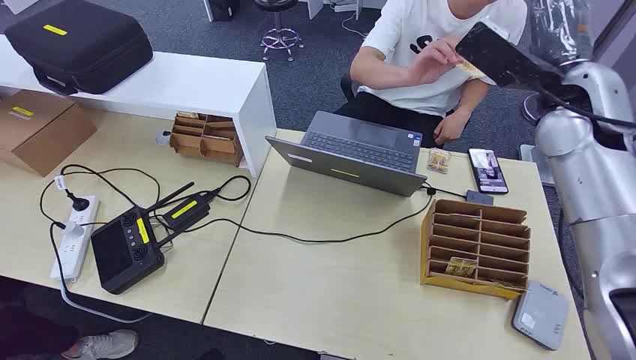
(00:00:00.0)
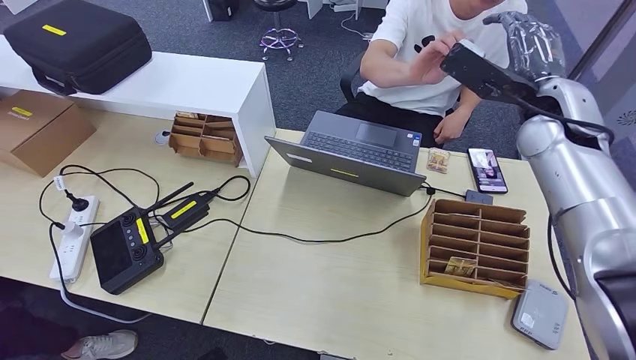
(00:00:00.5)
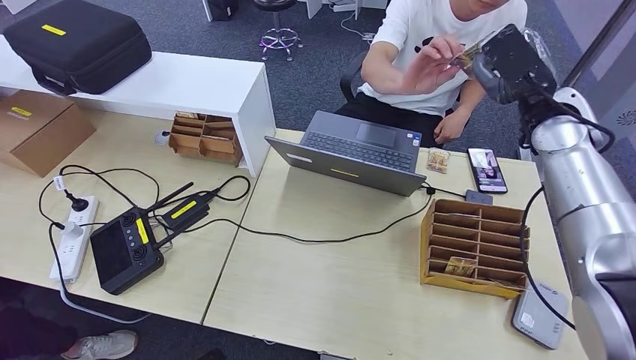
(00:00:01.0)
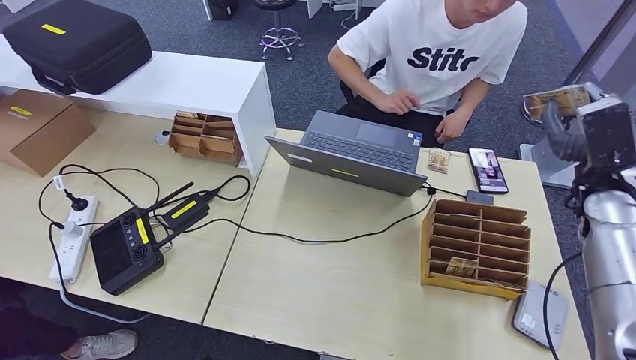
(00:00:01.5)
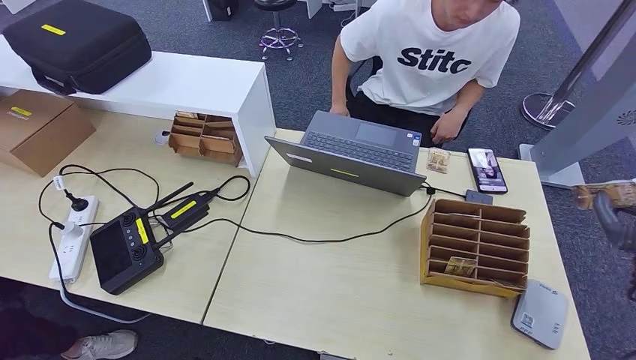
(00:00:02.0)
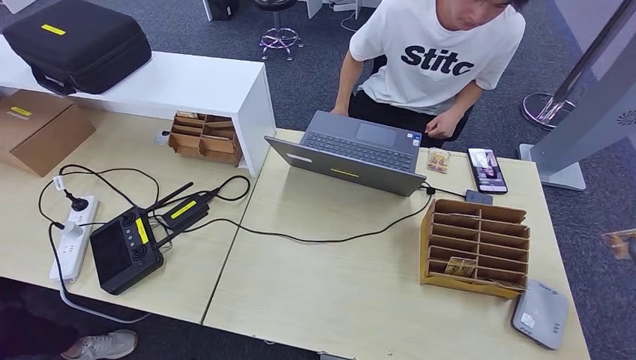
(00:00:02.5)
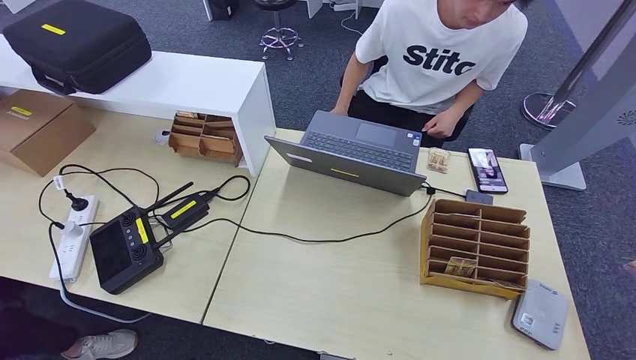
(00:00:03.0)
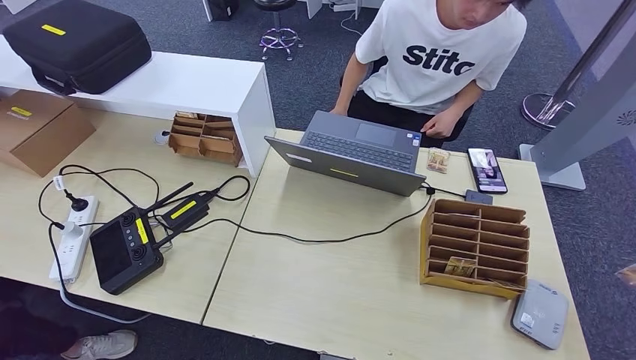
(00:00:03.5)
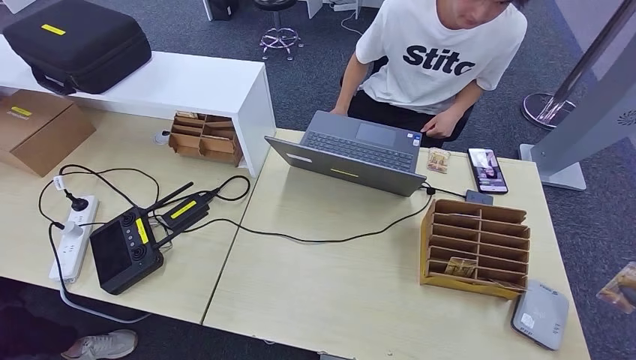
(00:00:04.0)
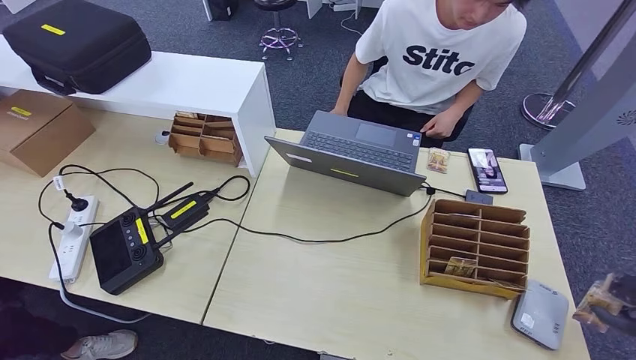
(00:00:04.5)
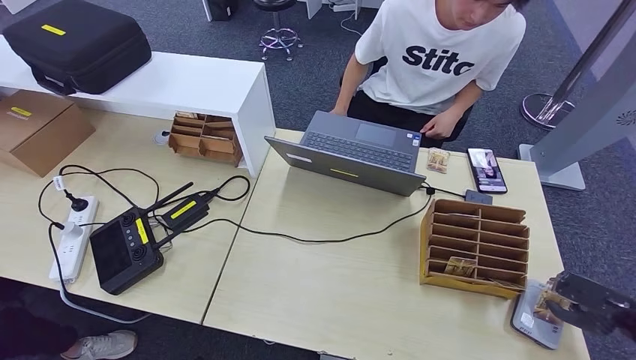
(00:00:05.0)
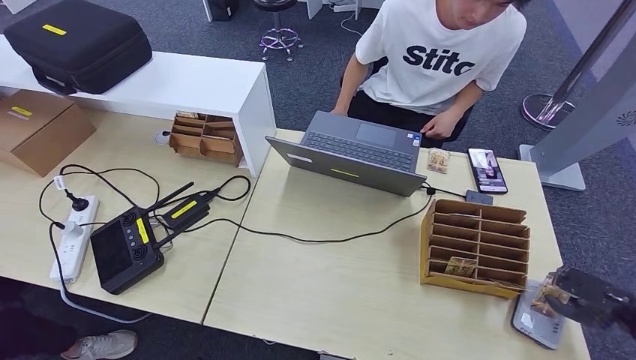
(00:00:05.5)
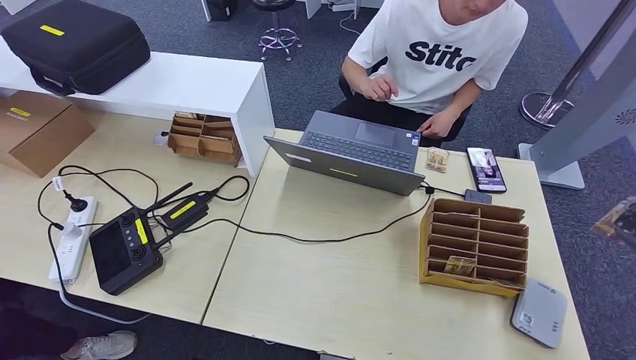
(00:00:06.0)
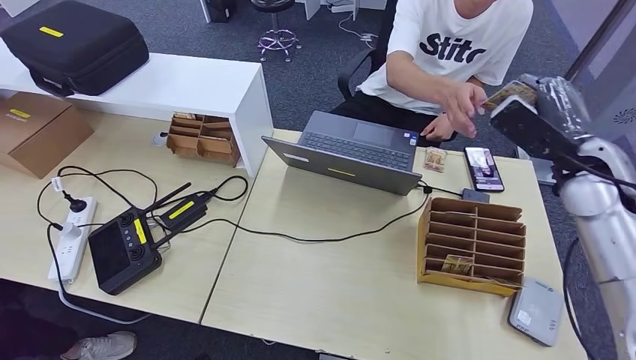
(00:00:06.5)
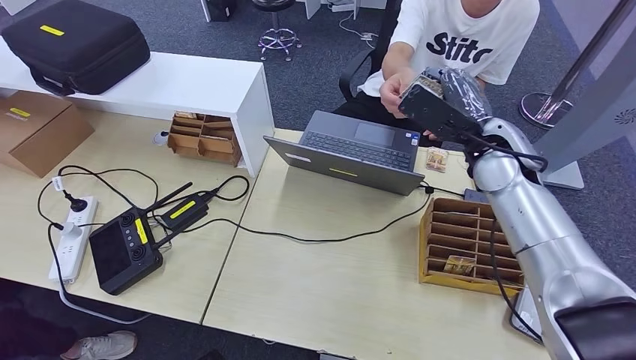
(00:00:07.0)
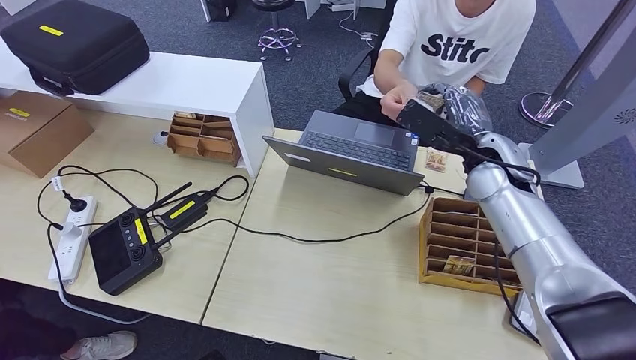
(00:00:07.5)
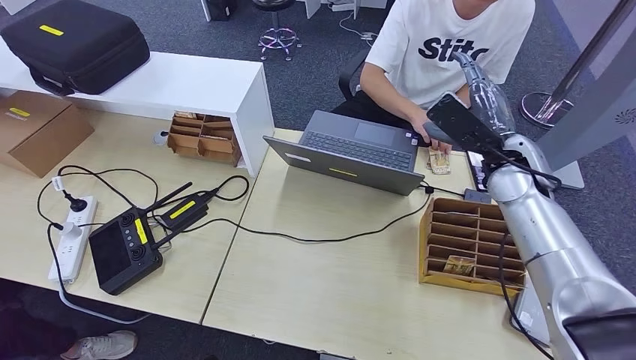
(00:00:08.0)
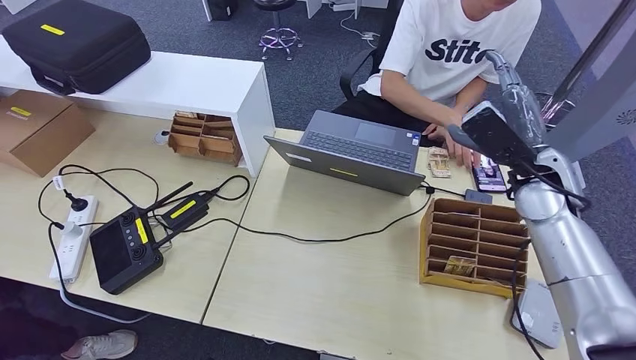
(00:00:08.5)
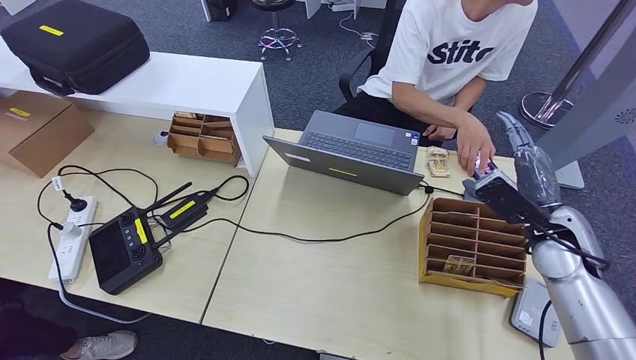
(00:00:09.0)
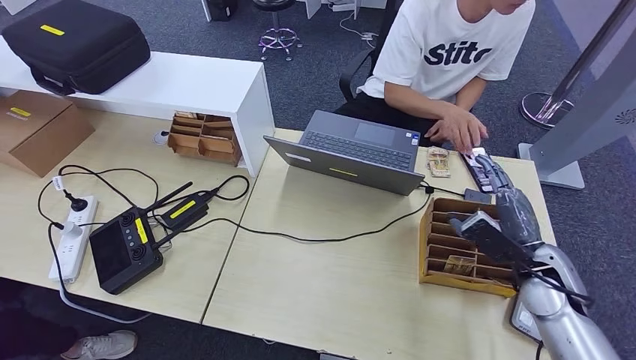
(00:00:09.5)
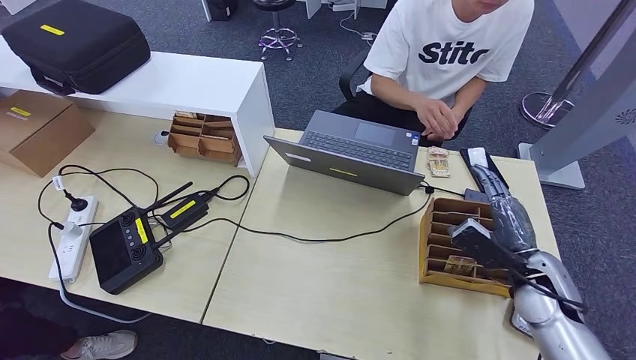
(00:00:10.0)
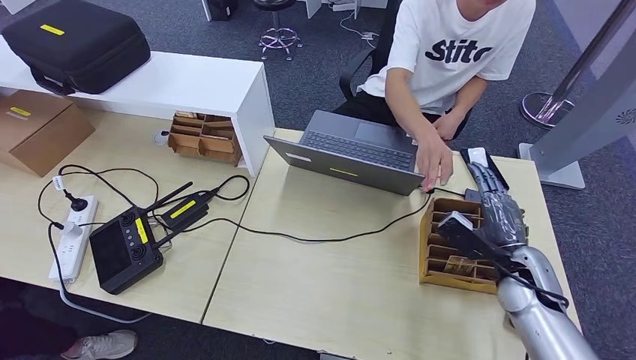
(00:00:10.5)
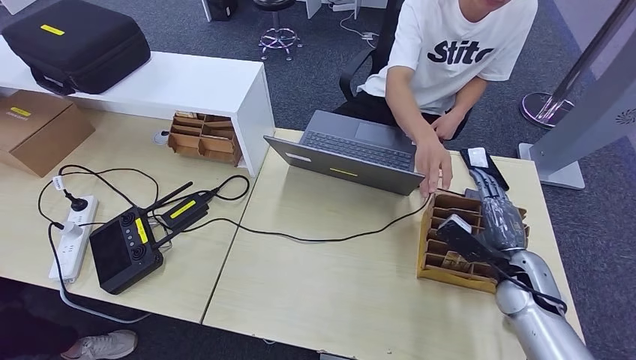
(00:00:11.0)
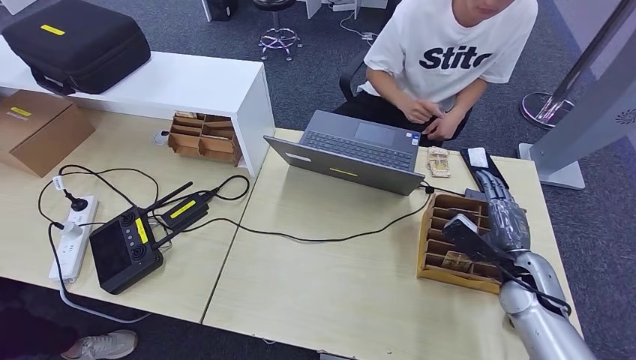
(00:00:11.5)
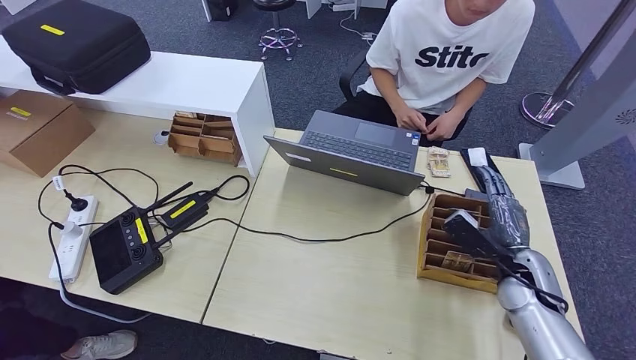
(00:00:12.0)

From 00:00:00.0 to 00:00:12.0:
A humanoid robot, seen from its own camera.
Step, from 00:00:00.0 to 00:00:02.0: Take the ID card from the person's hand.
Step, from 00:00:02.5 to 00:00:07.0: Place the ID card on the card reader.
Step, from 00:00:07.5 to 00:00:09.5: Hand the ID card to the person.
From 00:00:02.0 to 00:00:04.0: The right hand goes about 15 cm to the right and backward.
From 00:00:04.0 to 00:00:06.0: The right hand is displaced forward by some 5 cm.
From 00:00:06.0 to 00:00:08.0: The right hand heads to the left, covering approximately 30 cm.
From 00:00:08.0 to 00:00:10.0: The right hand moves downward, backward and to the right, about 20 cm.
From 00:00:10.0 to 00:00:12.0: The hands stay close to where they were, moving slightly.

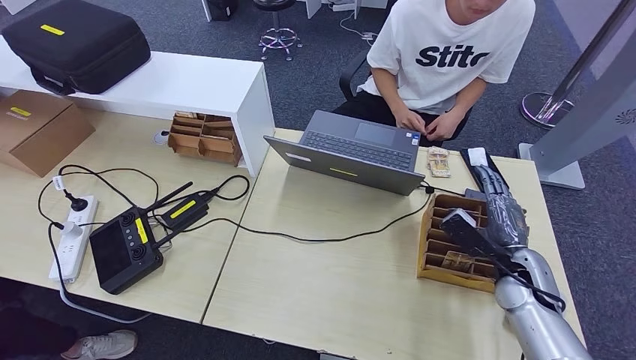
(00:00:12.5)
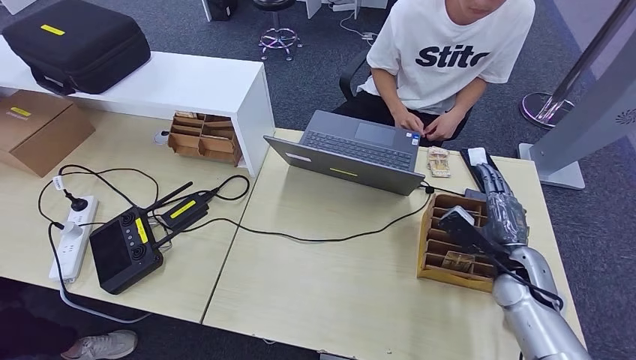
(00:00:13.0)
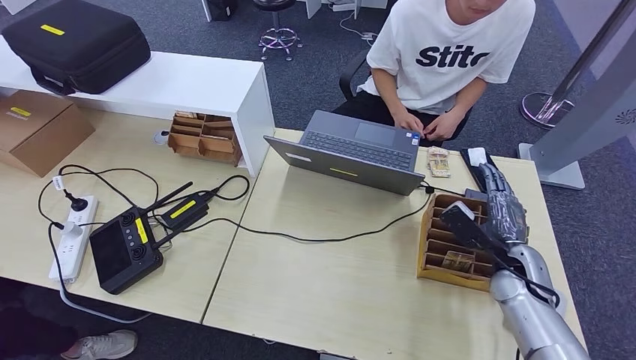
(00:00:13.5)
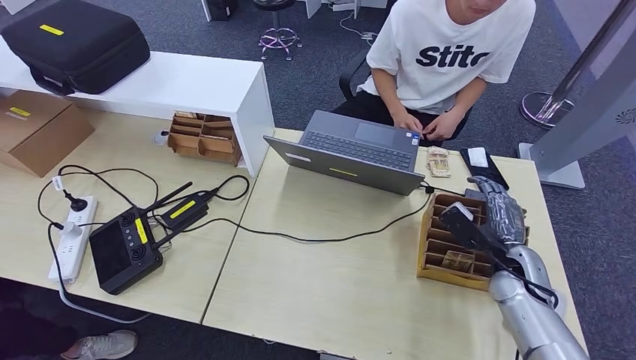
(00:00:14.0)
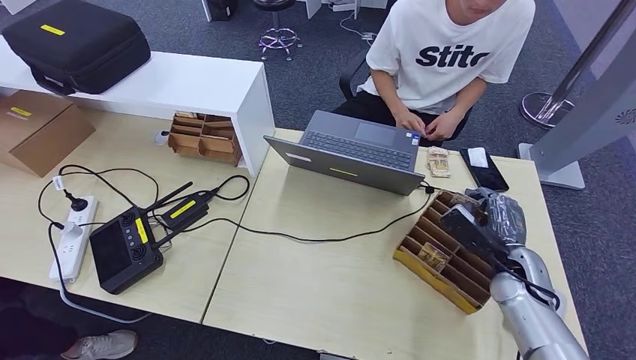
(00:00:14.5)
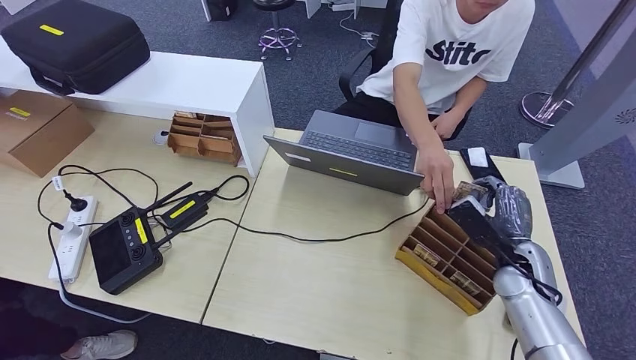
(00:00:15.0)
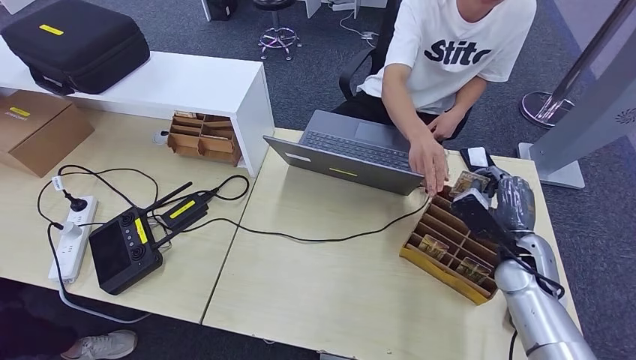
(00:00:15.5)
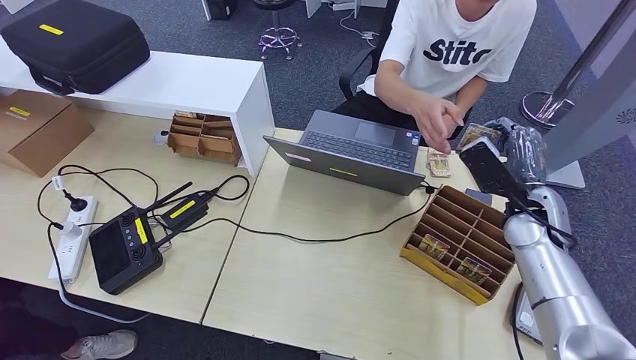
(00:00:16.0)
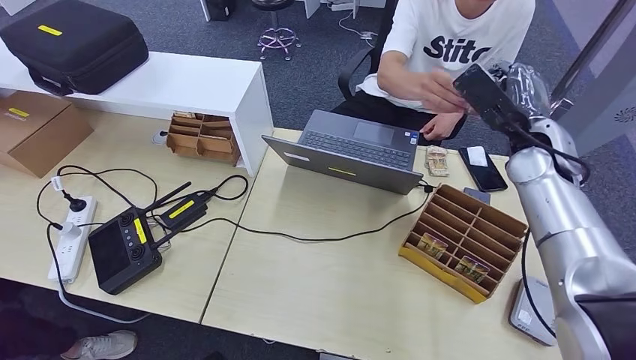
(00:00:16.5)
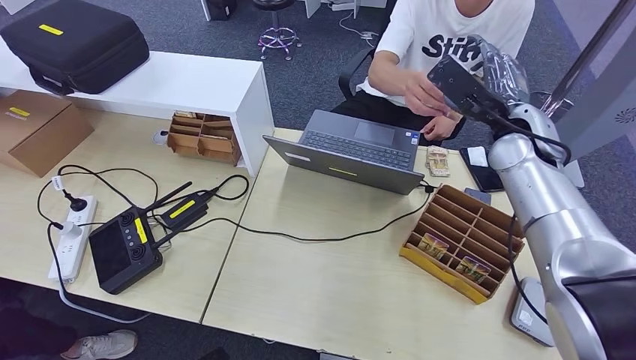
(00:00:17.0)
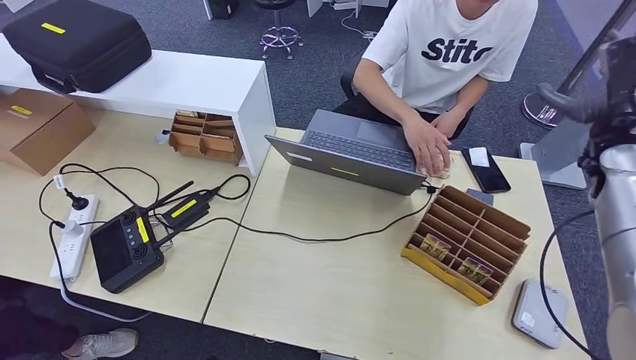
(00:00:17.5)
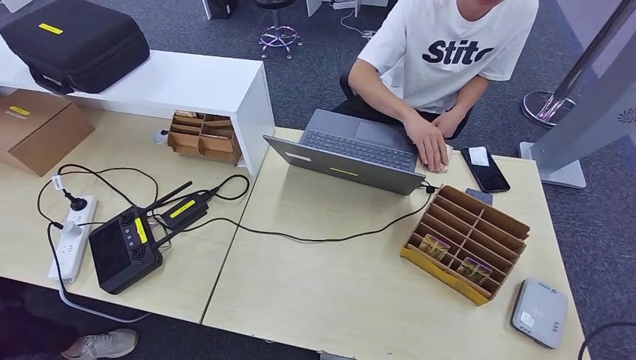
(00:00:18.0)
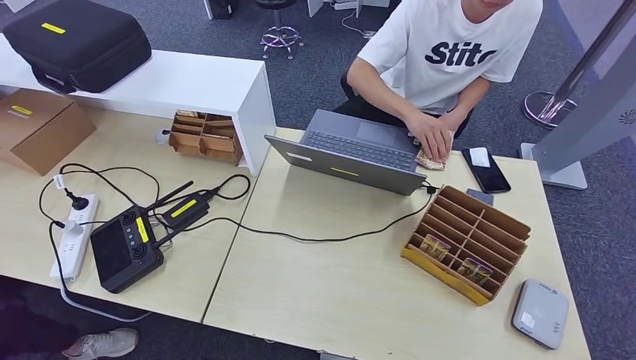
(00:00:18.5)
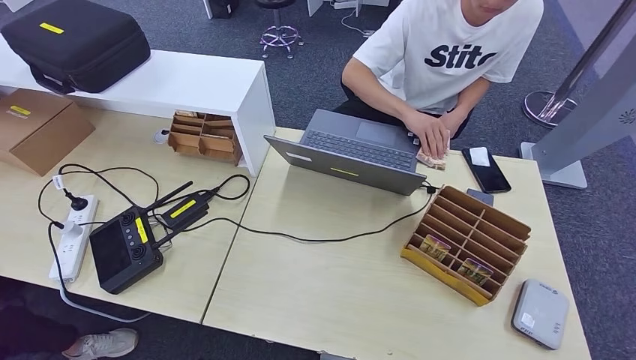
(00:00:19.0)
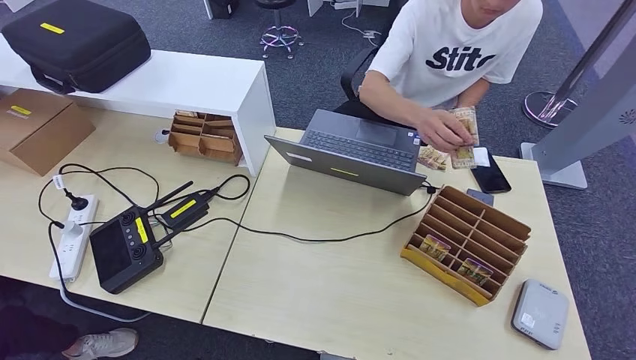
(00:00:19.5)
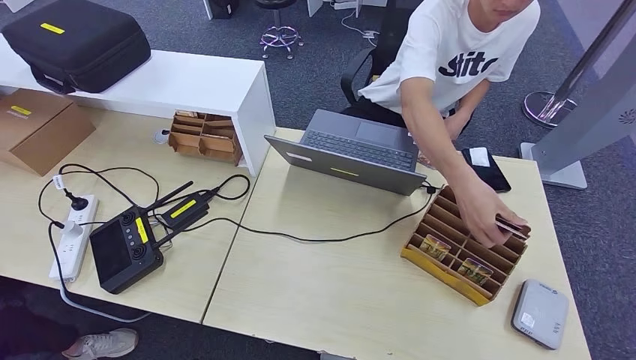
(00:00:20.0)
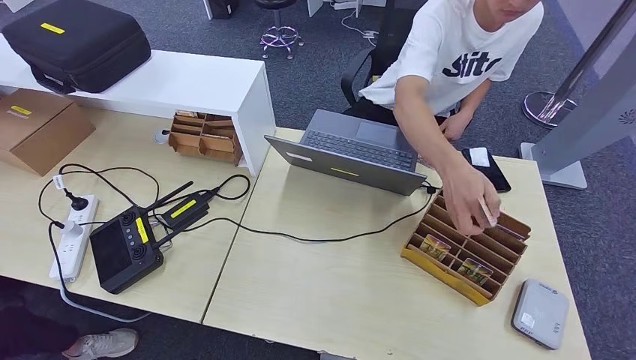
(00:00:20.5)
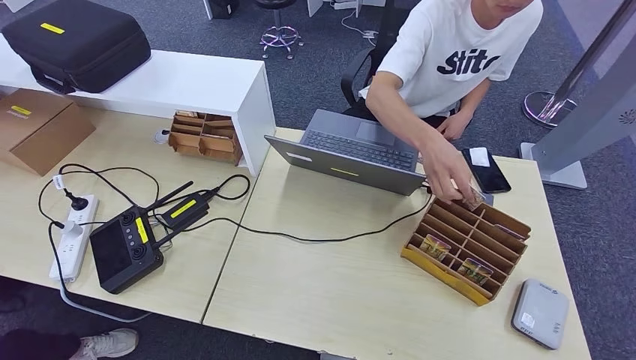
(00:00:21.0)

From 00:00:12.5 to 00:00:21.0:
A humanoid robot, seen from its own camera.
Step, from 00:00:12.5 to 00:00:16.5: Pick up the room key from the key card box.
Step, from 00:00:17.0 to 00:00:21.0: Hand the room key to the person.
From 00:00:12.5 to 00:00:14.5: The hands stay close to where they were, moving slightly.
From 00:00:19.0 to 00:00:21.0: The right hand is displaced to the left, downward and backward by roughly 20 cm.
